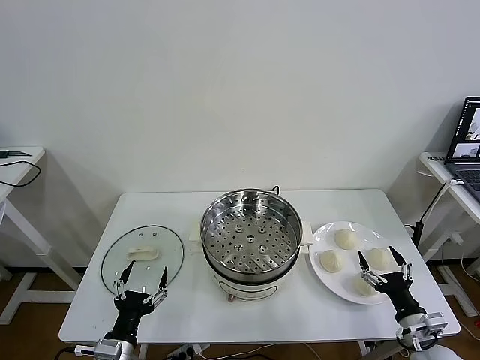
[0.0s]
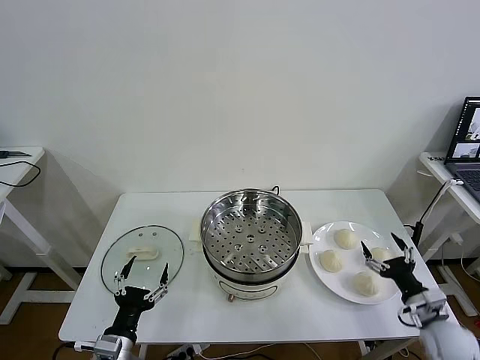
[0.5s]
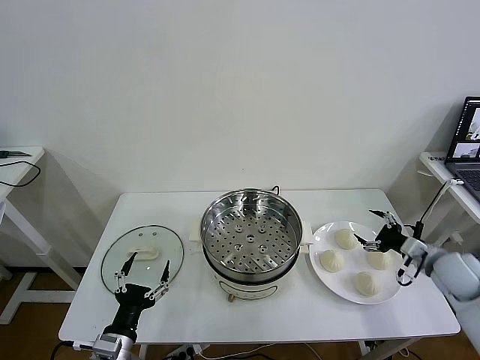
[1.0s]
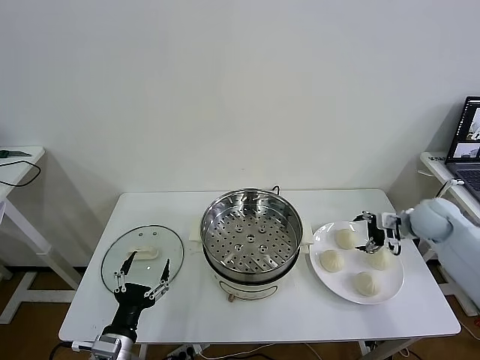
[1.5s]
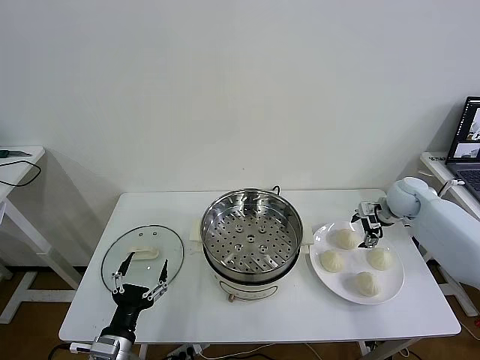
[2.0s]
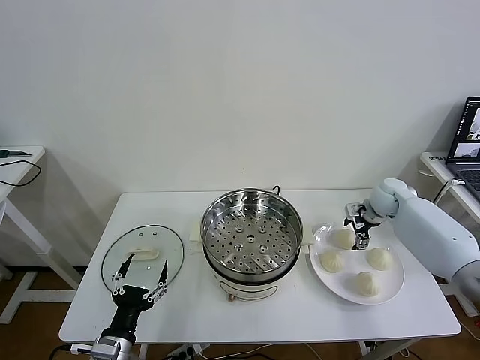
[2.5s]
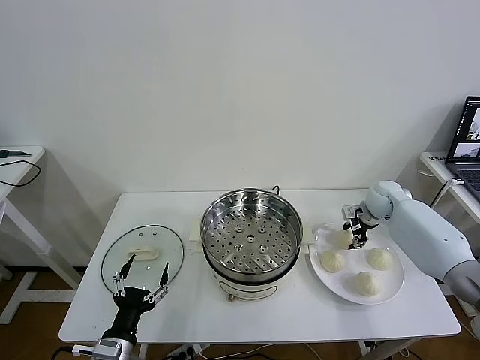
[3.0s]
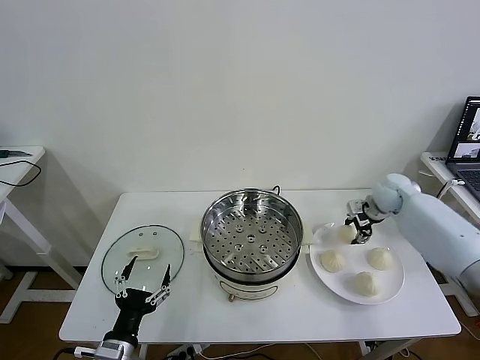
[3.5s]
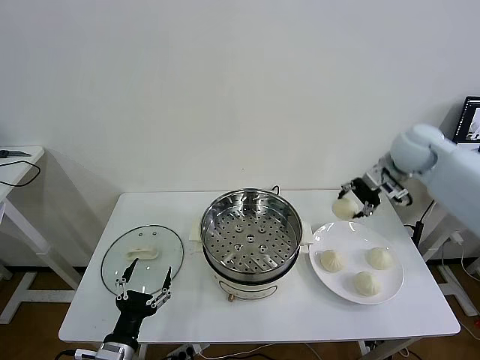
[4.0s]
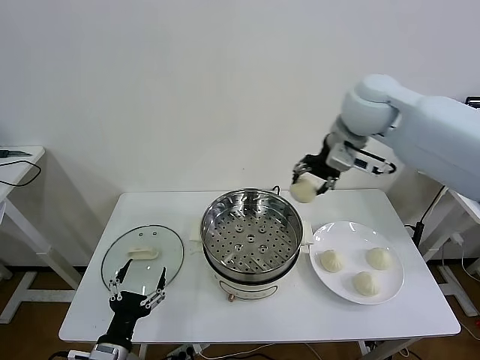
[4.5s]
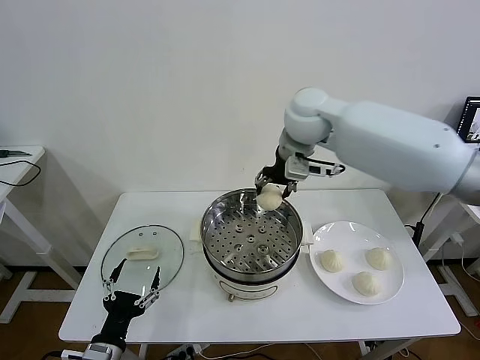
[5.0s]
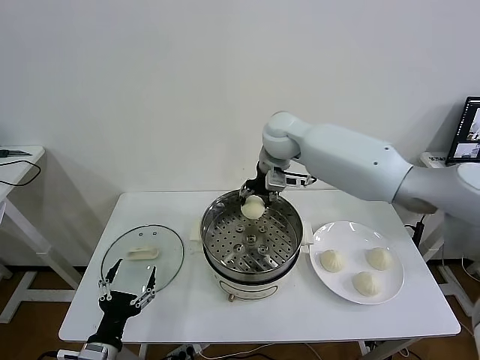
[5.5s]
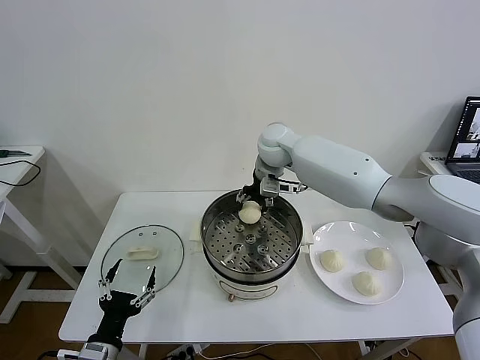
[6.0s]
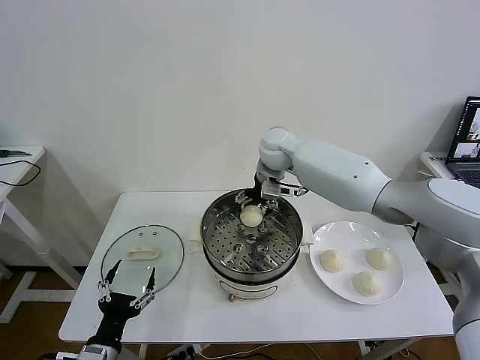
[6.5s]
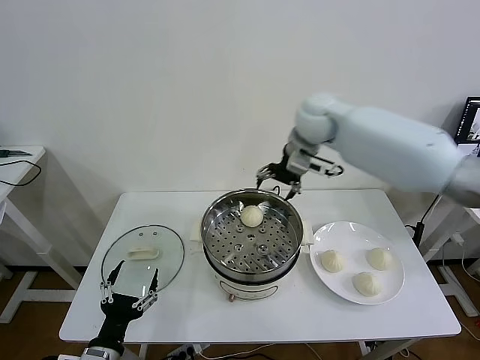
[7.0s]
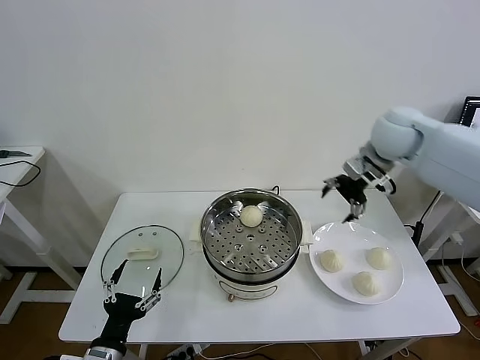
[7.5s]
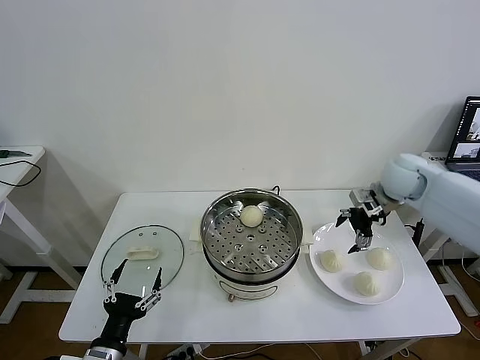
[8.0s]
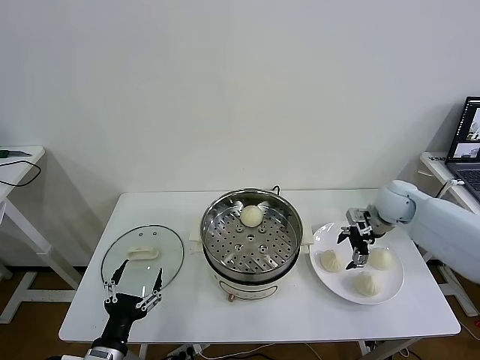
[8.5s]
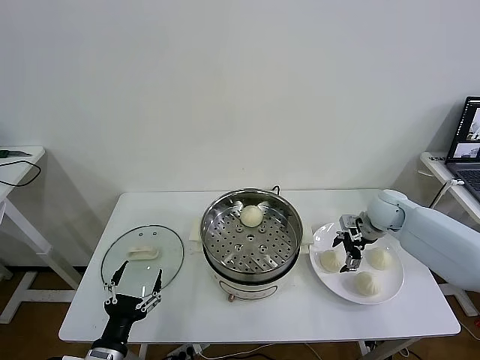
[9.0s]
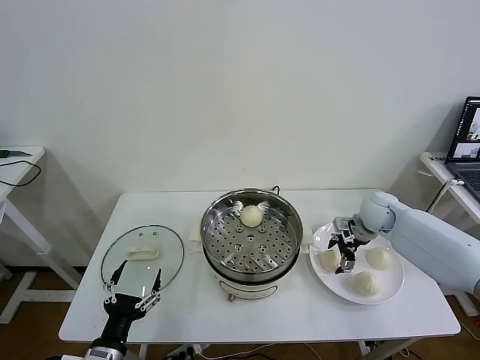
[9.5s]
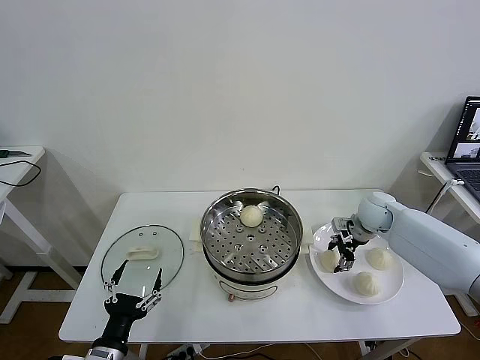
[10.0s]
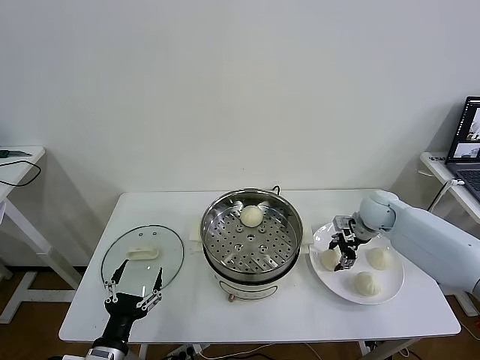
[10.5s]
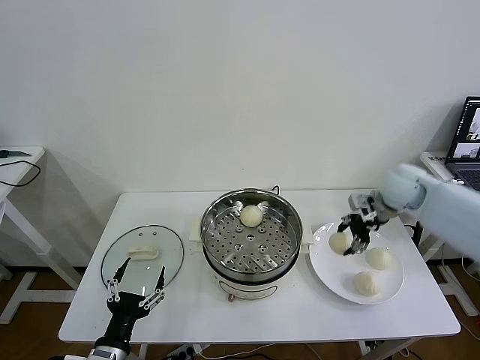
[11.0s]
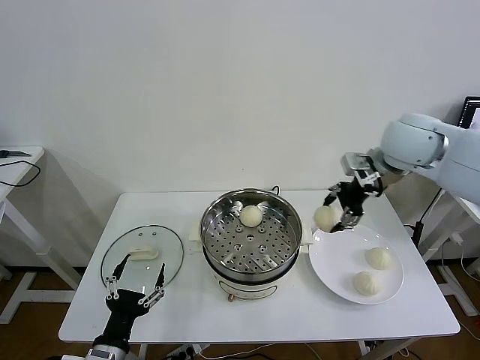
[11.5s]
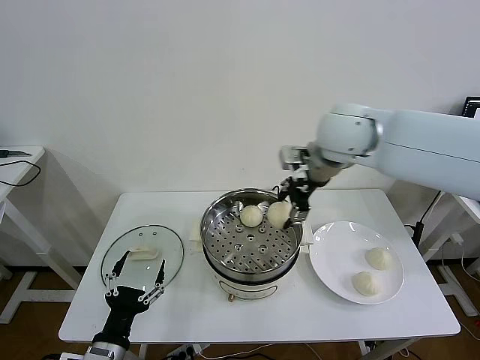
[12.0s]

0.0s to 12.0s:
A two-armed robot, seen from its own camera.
Task of the whole recording: take steamed baozi put them in steamer then cover it.
Step, 0.0s to 3.0s: Grasp the baozi in the plate with right gripper.
Step, 3.5s to 6.5s: Place the baozi on the steamer with right gripper.
Step, 7.0s to 10.0s: Grasp the baozi in the plate with right gripper.
2.0s to 4.0s: The right gripper heads upward, covering about 20 cm, and closes its fingers.
4.0s to 6.0s: The right gripper is displaced to the left by about 25 cm.
6.0s to 8.0s: The right gripper goes approximately 30 cm to the right, and opens up.
8.0s to 10.0s: The right gripper goes roughly 10 cm downward, and closes.
10.0s to 12.0s: The right gripper heads upward and to the left, covering some 35 cm.

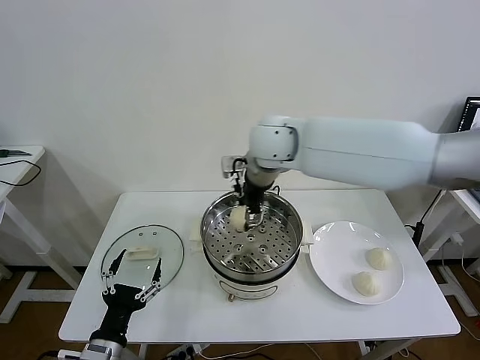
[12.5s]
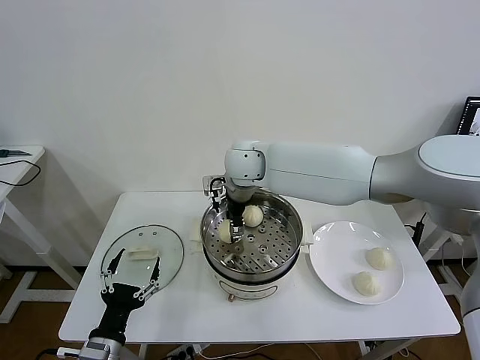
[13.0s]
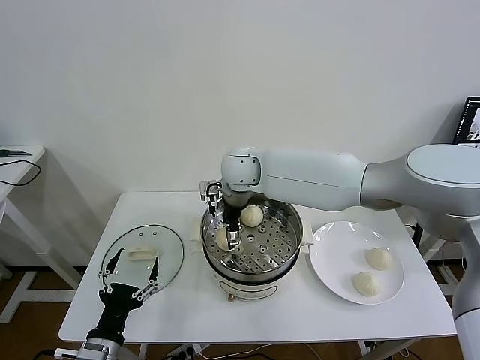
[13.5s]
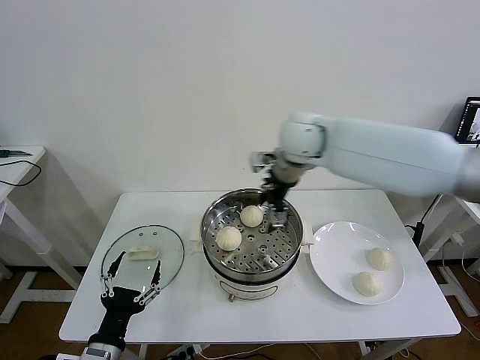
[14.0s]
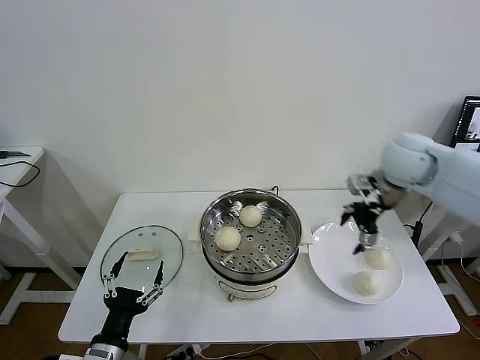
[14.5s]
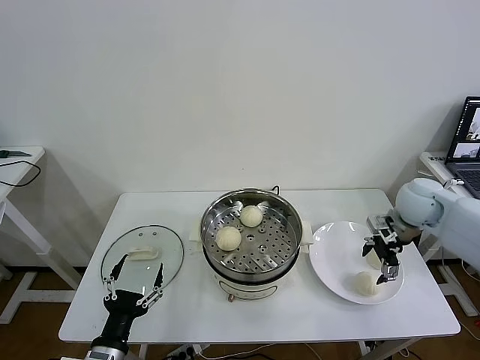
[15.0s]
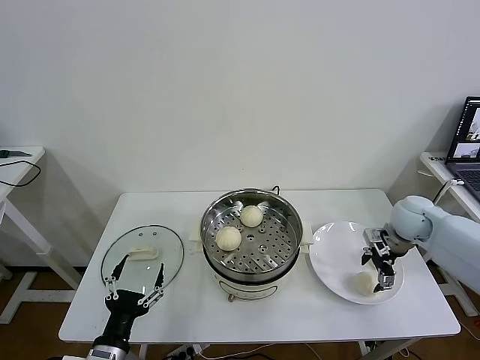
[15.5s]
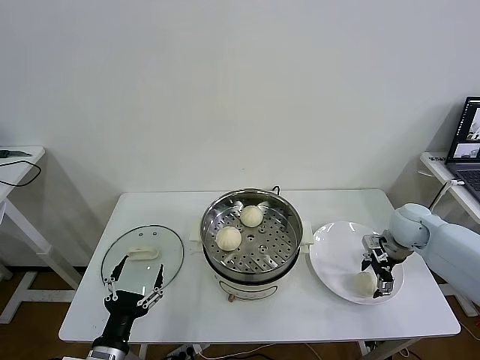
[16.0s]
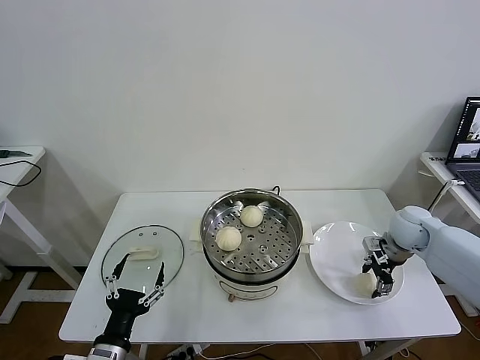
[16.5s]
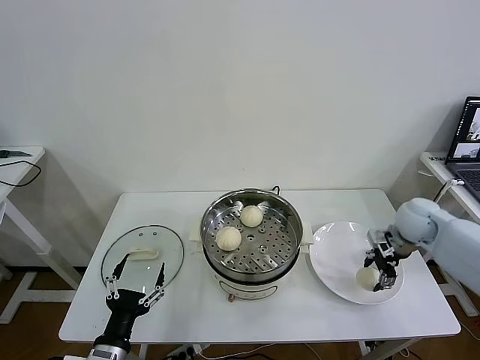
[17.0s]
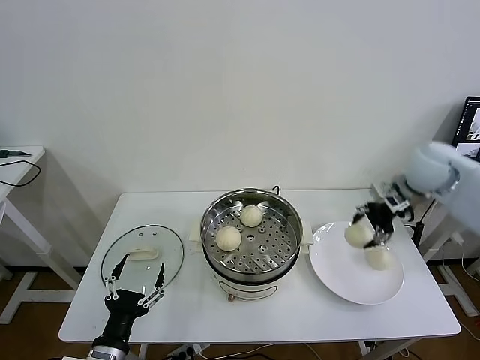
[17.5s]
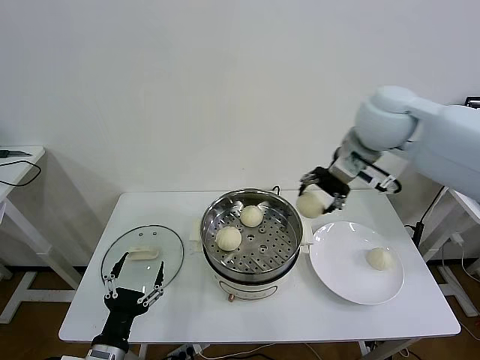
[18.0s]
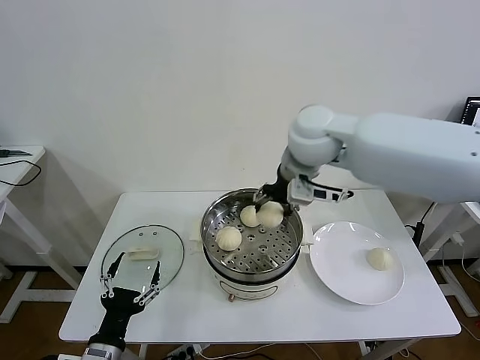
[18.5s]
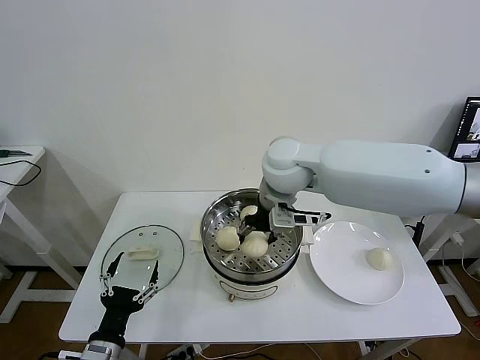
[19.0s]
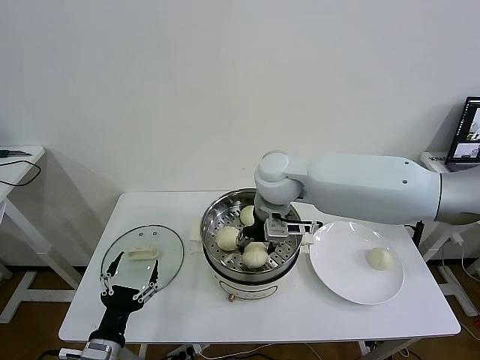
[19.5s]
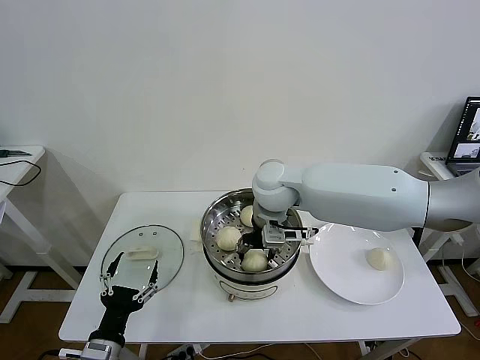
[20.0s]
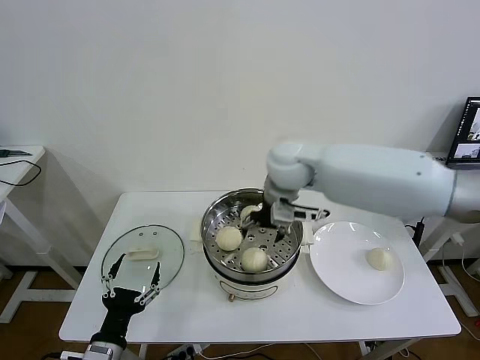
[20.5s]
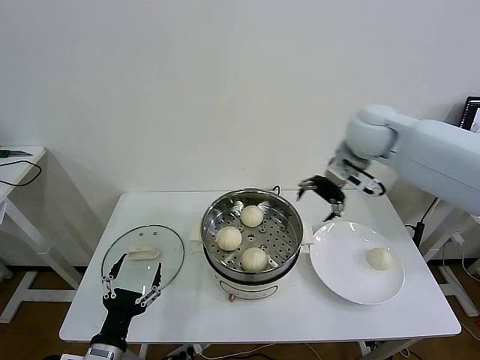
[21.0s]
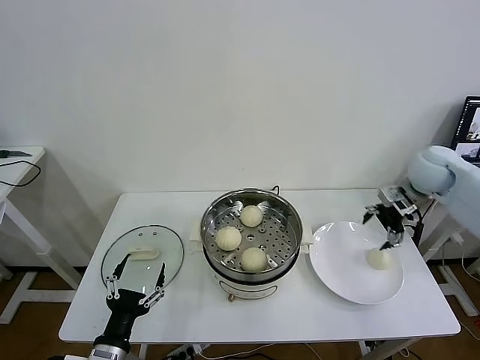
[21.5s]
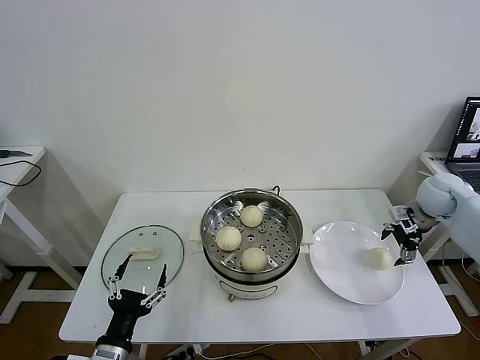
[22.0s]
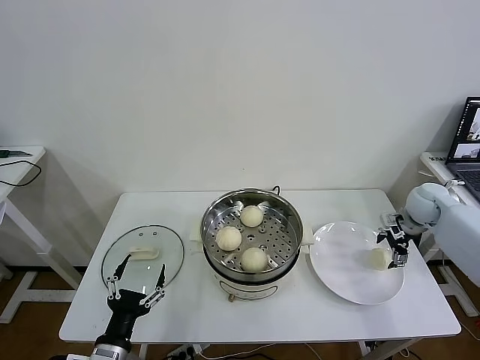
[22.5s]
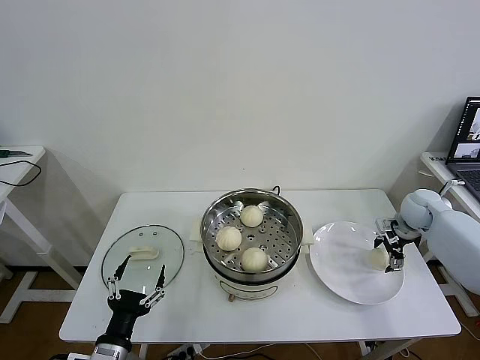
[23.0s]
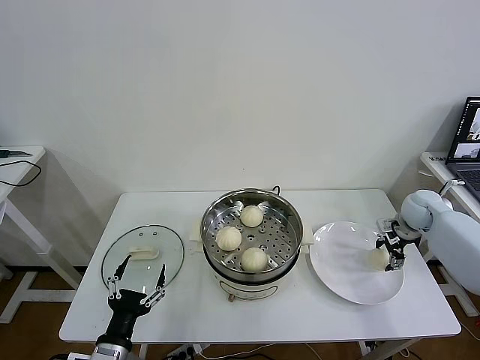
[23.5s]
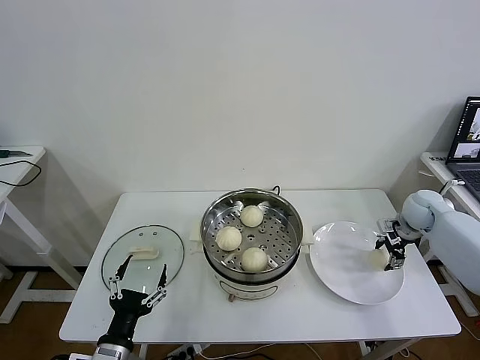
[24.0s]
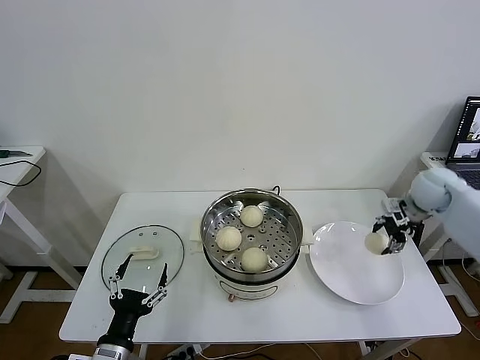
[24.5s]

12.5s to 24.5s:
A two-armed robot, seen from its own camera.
Task of the whole recording: take steamed baozi put them in steamer then cover it.
Step, 13.5s to 16.5s: Grasp the baozi in the plate with right gripper.
Step, 17.0s to 20.0s: Place the baozi on the steamer with right gripper.
Step, 20.5s to 24.0s: Grasp the baozi in the plate with right gripper.
12.5s to 14.5s: The right gripper shifts some 30 cm to the right, and opens.
14.5s to 16.5s: The right gripper shifts some 20 cm downward and to the right, and closes its fingers.
16.5s to 18.5s: The right gripper travels to the left and upward by some 40 cm.
18.5s to 20.5s: The right gripper shifts some 5 cm downward, and opens up.
20.5s to 22.5s: The right gripper is displaced to the right and downward by some 40 cm.
22.5s to 24.5s: The right gripper travels upward by some 5 cm, and closes up.

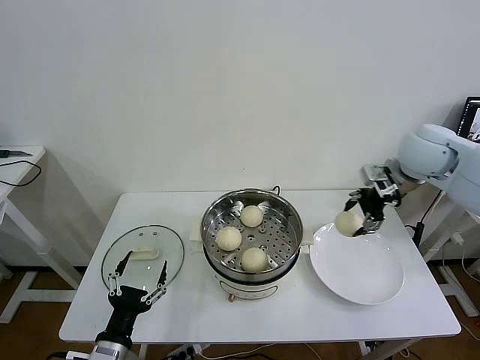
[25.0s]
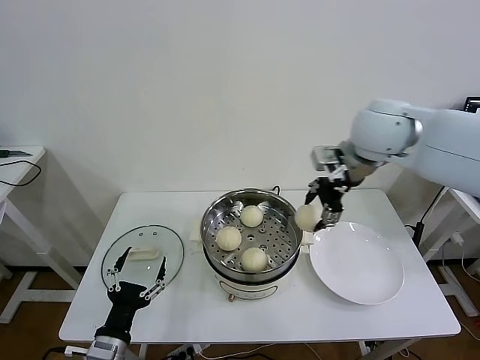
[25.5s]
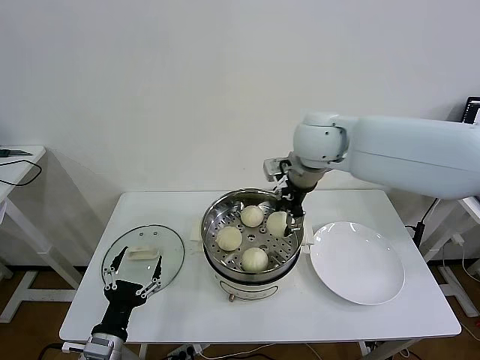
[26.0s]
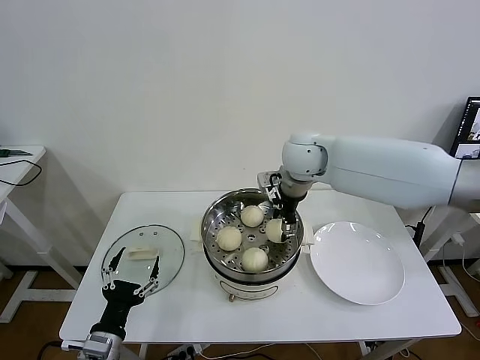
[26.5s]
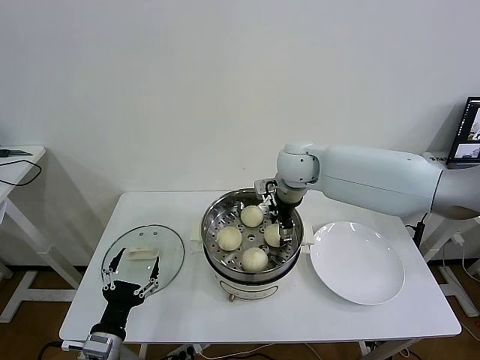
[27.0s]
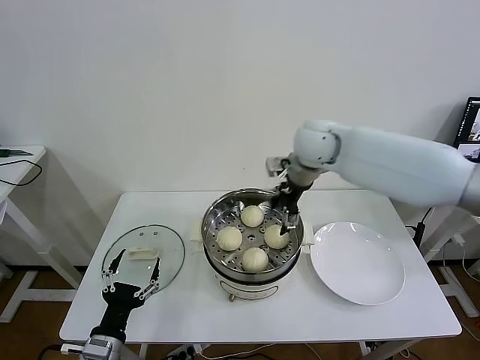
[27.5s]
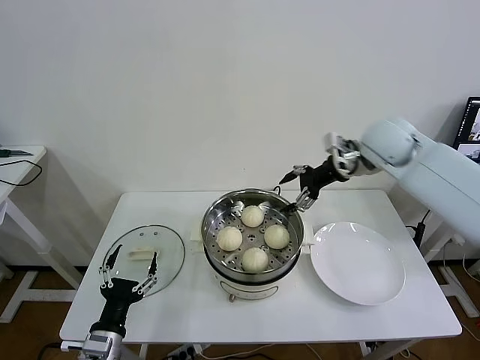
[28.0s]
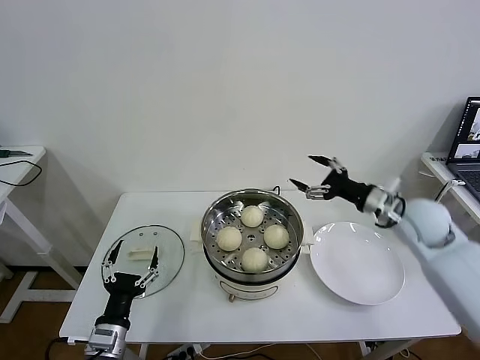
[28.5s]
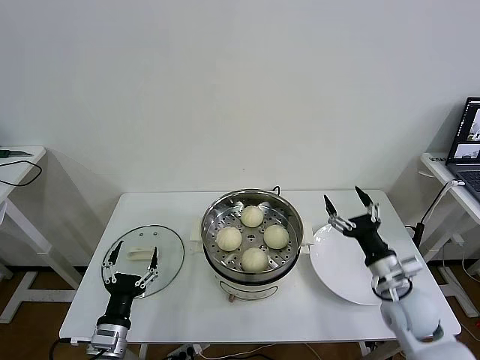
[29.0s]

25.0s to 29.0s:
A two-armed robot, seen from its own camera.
Task of the whole recording: take steamed baozi put them in steamer then cover it.
Step, 25.0s to 27.0s: Place the baozi on the steamer with right gripper.
25.0s to 27.0s: The right gripper moves to the left, roughly 20 cm.
27.0s to 29.0s: The right gripper shifts roughly 40 cm backward, to the right and downward, and opens up.
